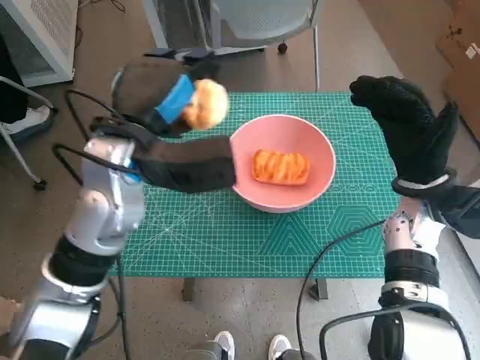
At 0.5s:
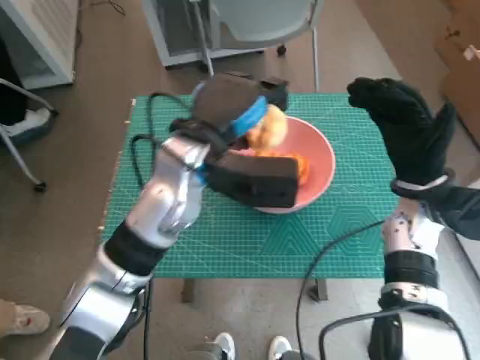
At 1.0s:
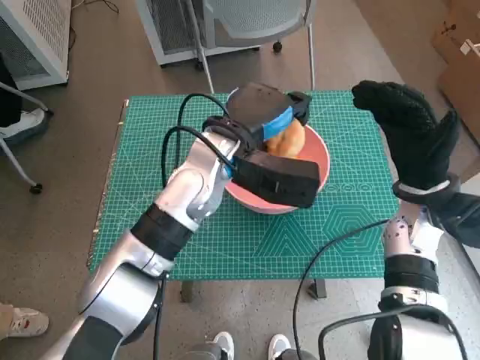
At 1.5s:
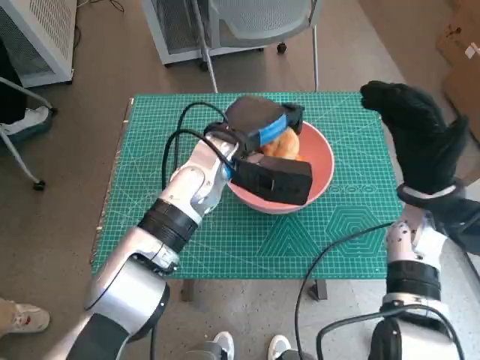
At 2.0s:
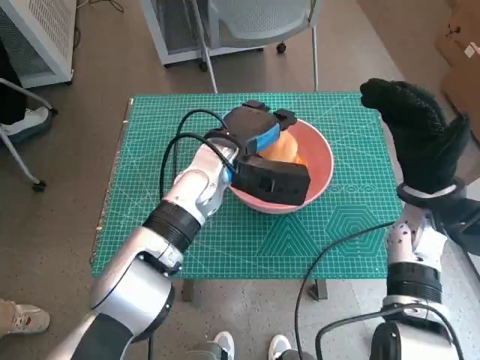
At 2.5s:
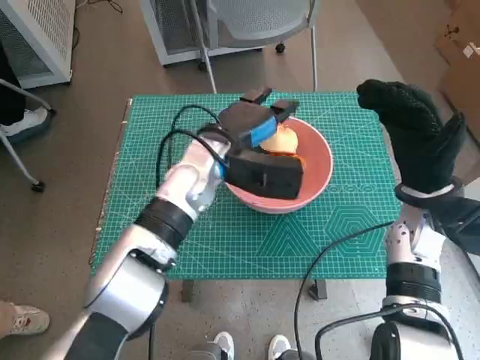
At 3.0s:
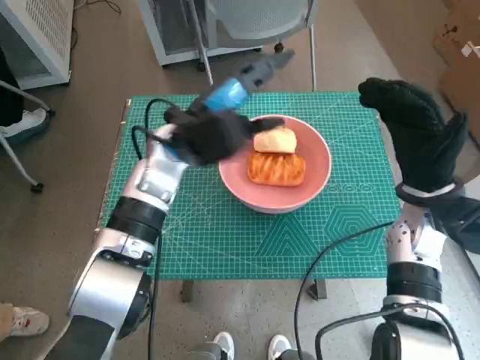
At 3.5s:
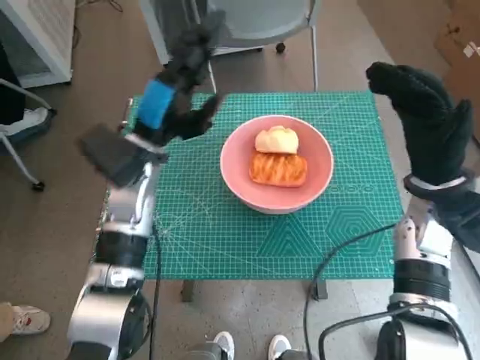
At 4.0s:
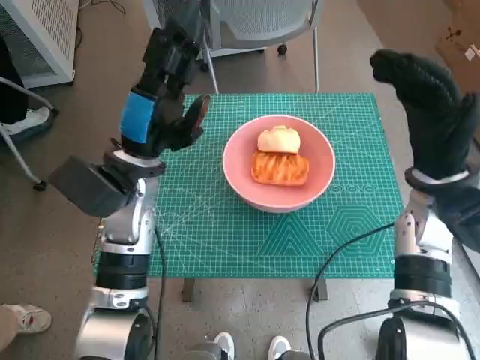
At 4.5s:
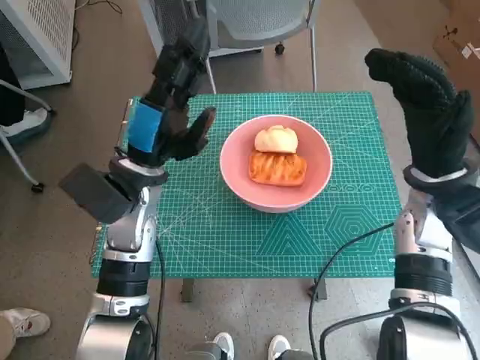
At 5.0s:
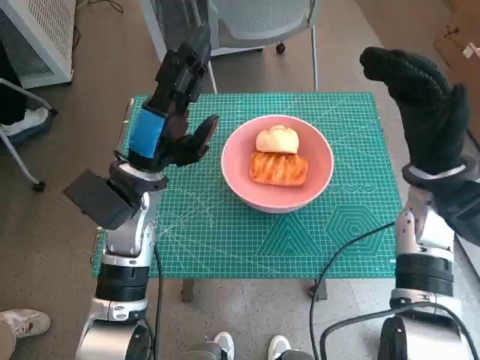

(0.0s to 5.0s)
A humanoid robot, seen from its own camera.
Step, 0.0s - 2.0s: Place the round bread in pink bowl with left hand.
0.0s - 2.5s: The left hand shifts roughly 15 cm to the right, downward and forward.
2.5s - 5.0s: The left hand is displaced to the left and backward by about 10 cm.
